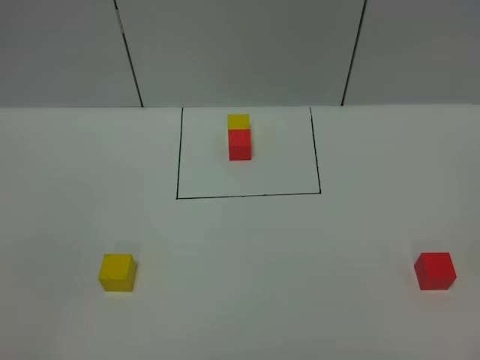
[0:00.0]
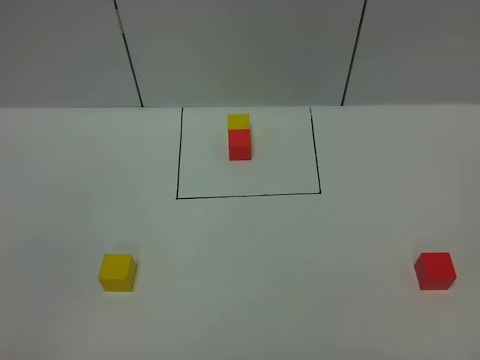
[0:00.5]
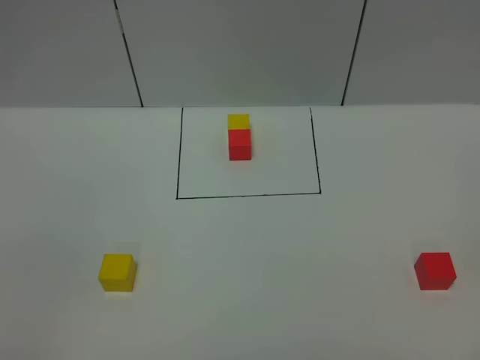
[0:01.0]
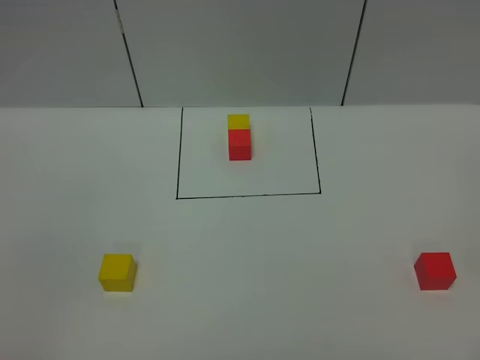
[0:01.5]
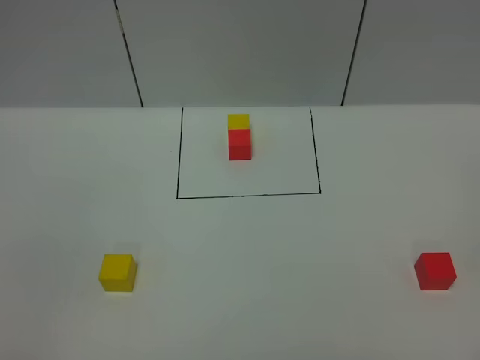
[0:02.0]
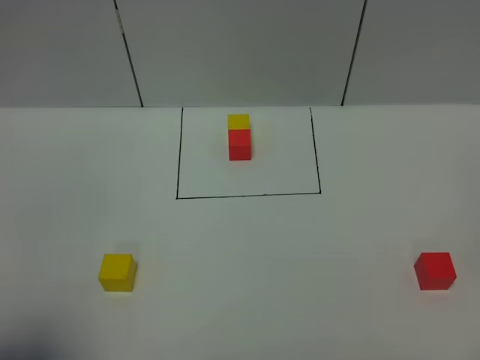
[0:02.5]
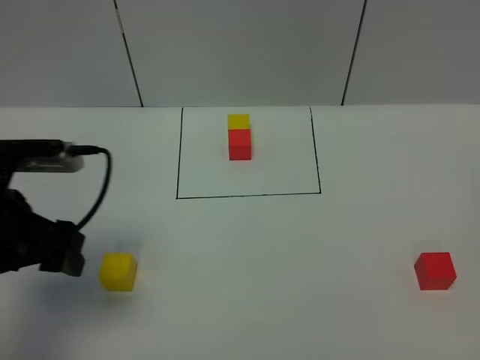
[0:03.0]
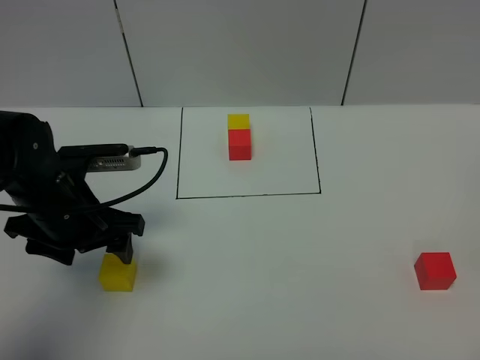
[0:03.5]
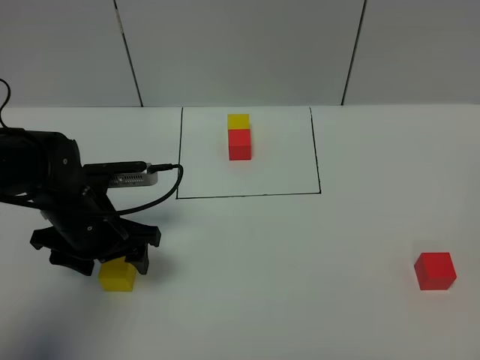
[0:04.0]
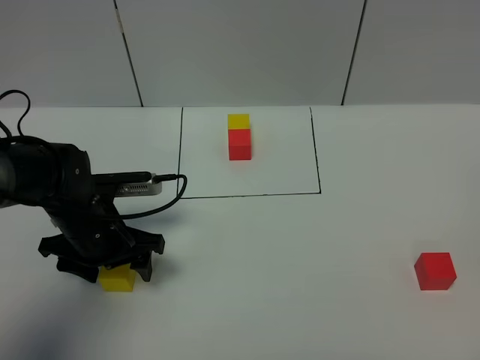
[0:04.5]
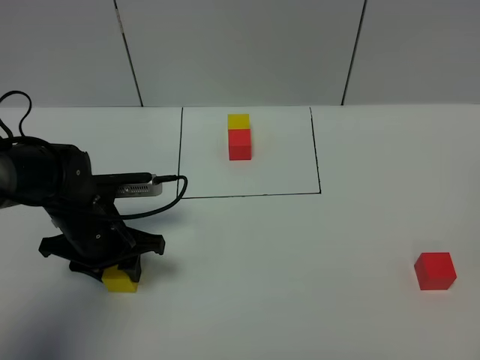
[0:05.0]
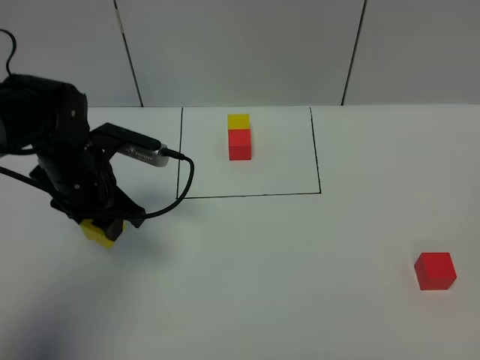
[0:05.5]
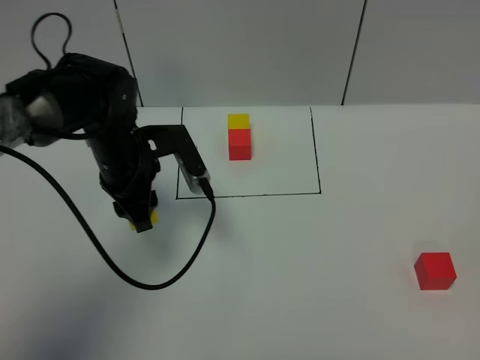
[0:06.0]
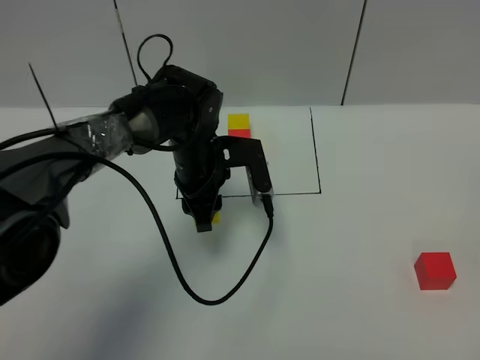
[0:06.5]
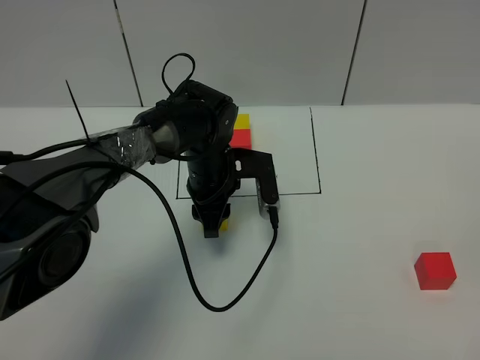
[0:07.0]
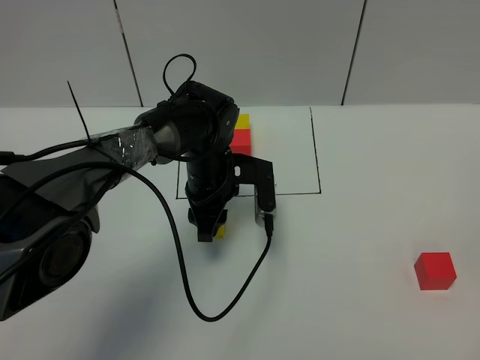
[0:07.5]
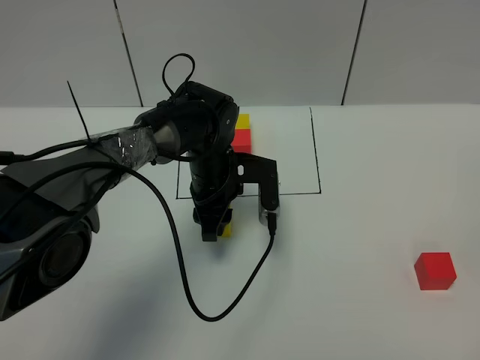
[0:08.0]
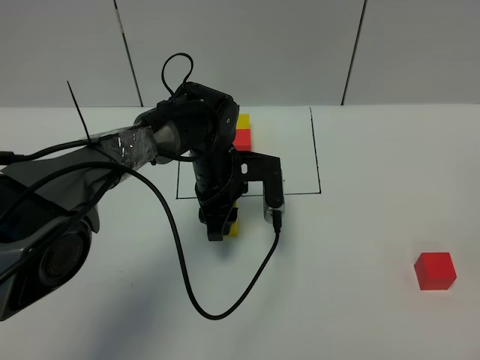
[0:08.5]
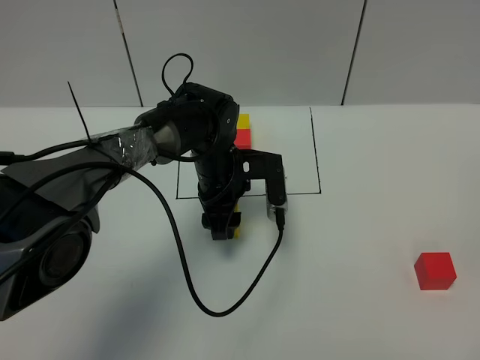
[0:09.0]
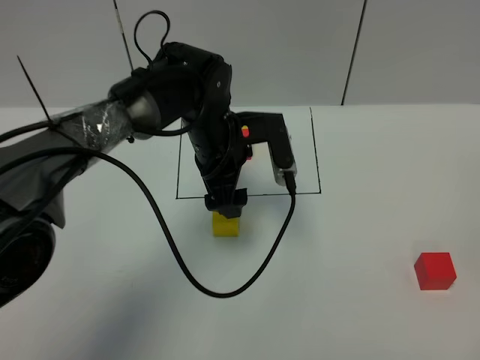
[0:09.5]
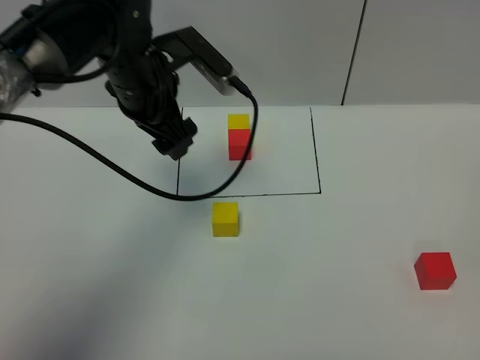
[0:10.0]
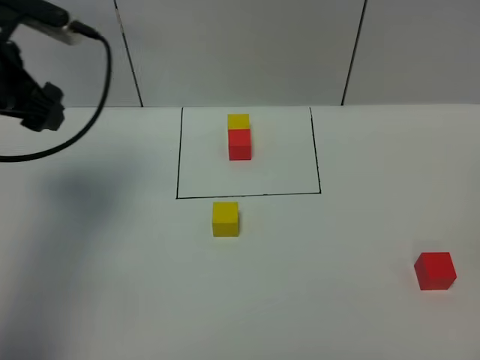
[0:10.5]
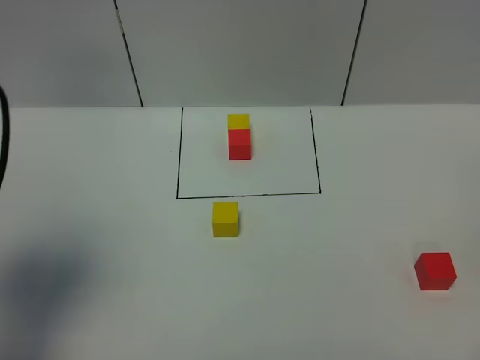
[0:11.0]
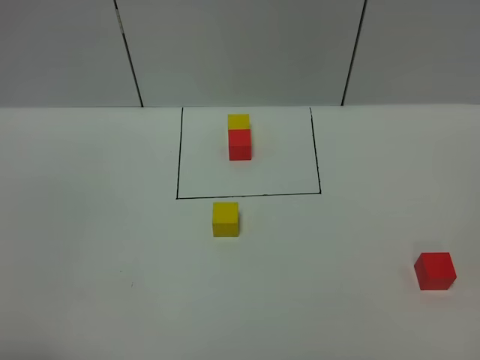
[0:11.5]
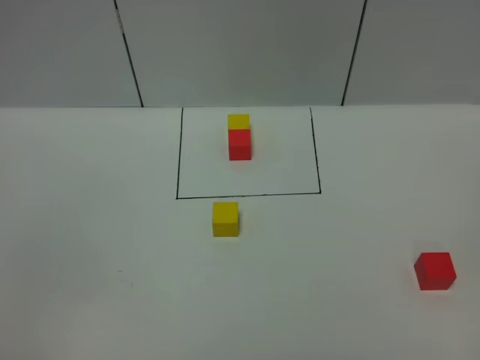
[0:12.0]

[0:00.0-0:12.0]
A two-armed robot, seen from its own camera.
Task of the whole recording: According to the building block template in front, assemble the scattered blocks together.
Step, 0:03.0 to 0:09.0: Put the yellow cube in the center of the table.
0:00.0 to 0:02.0: The two grippers keep their place.
0:02.0 to 0:04.0: The left gripper moves forward, roughly 30 cm.
0:04.0 to 0:06.0: The left gripper travels forward and to the right by about 10 cm, and closes its fingers.
0:06.0 to 0:08.0: The left gripper moves to the right and downward, about 10 cm.
0:08.0 to 0:10.0: The left gripper moves upward and to the left, about 20 cm, and opens.
0:10.0 to 0:12.0: The left gripper heads backward, covering about 40 cm.

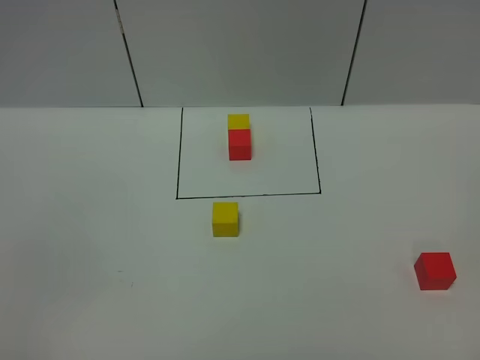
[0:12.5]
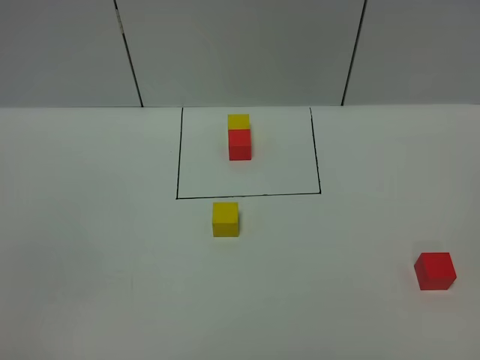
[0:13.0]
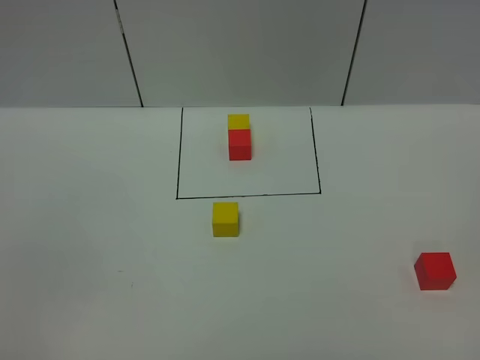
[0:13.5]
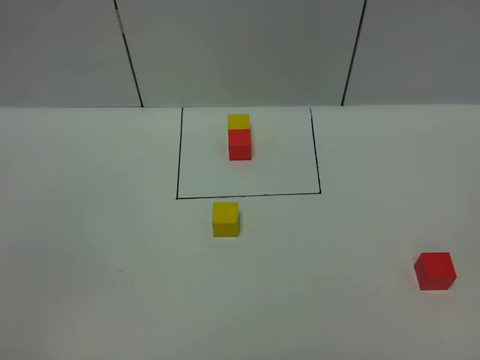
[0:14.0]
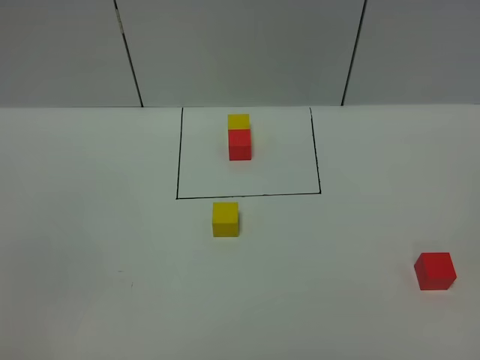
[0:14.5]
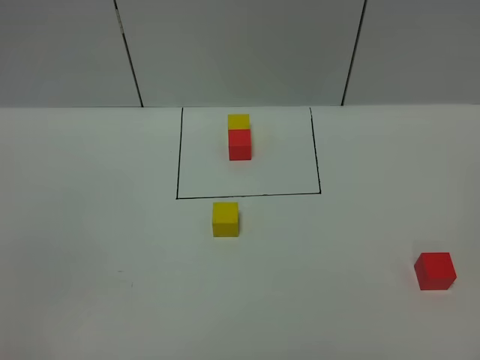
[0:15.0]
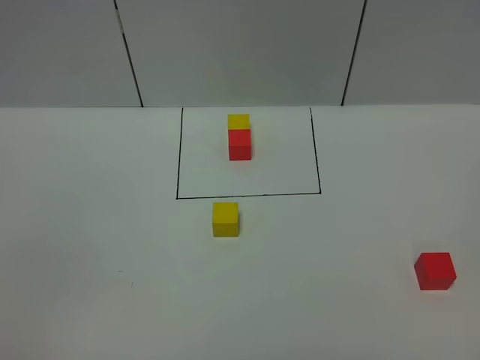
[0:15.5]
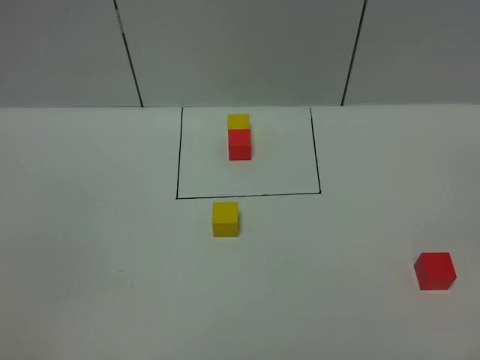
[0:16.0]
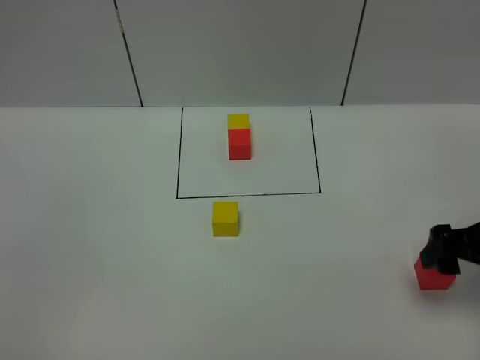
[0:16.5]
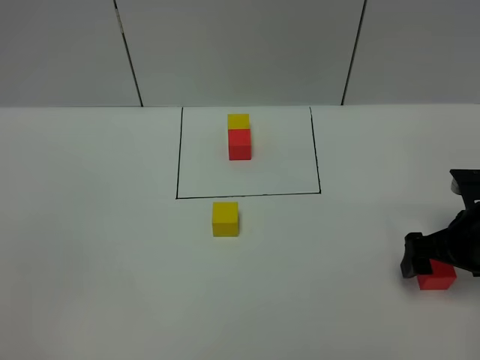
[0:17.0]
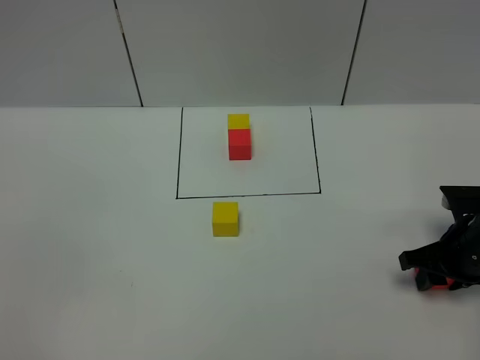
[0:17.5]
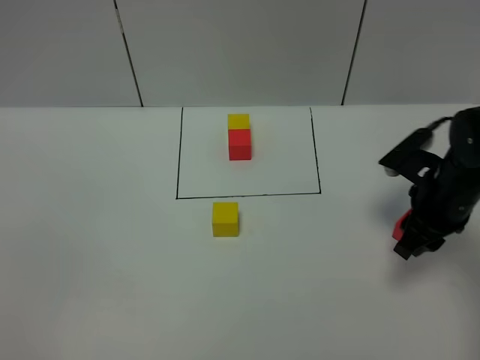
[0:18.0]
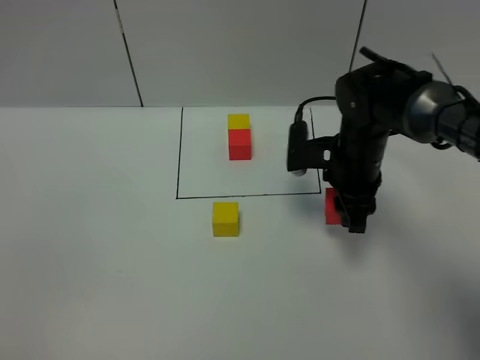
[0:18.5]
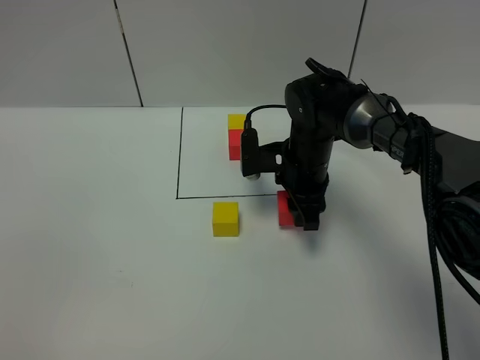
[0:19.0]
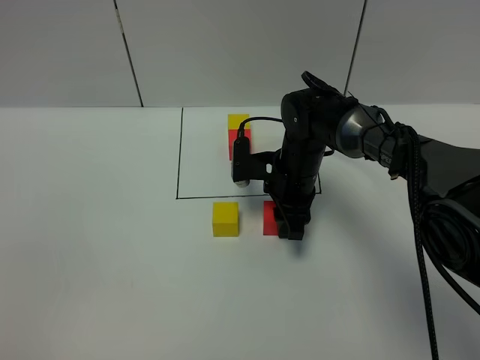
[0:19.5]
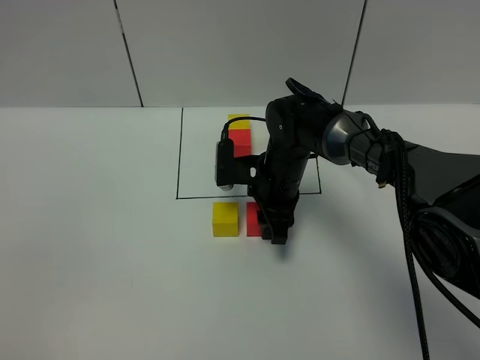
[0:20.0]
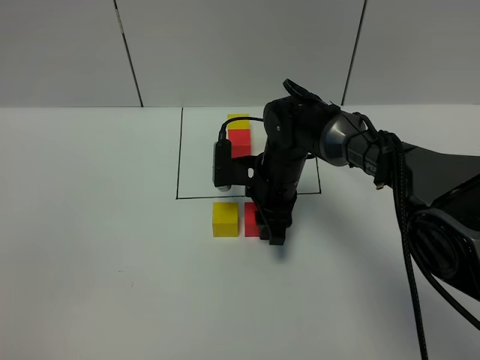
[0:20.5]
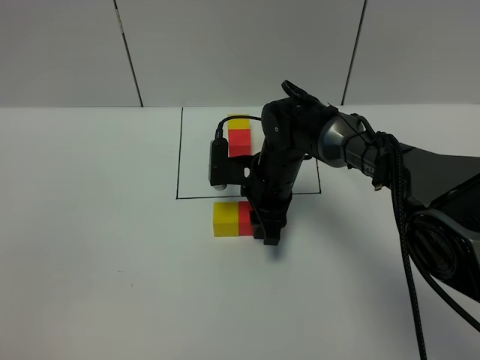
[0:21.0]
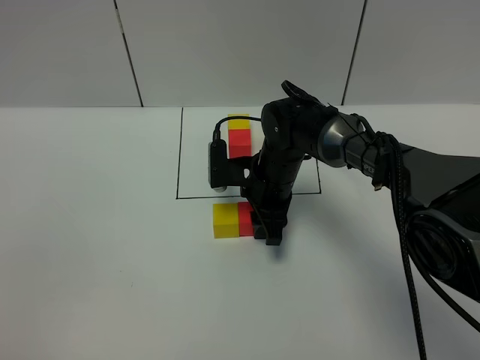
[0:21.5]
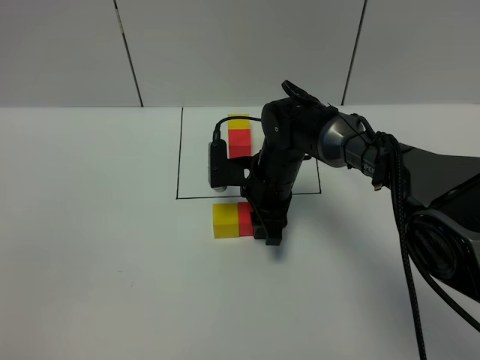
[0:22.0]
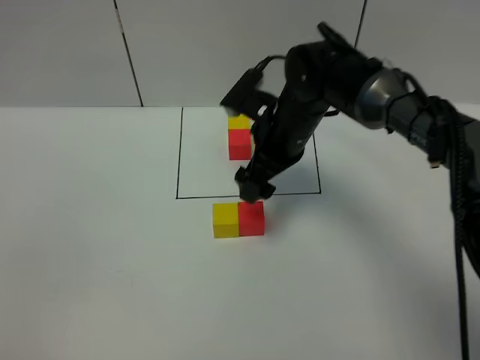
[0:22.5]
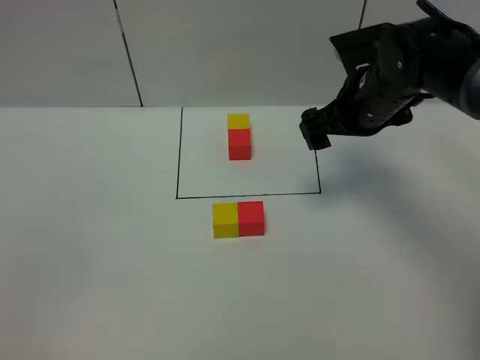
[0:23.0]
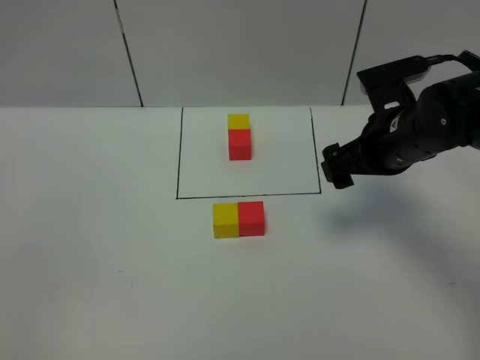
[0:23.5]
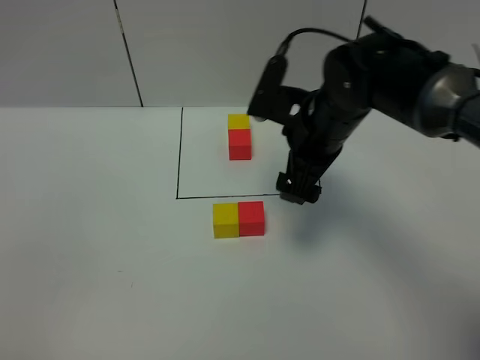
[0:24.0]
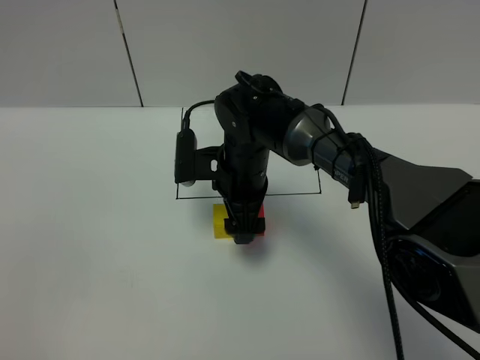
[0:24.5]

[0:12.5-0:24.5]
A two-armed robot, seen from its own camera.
Task of the whole recording: According to the building block template in front, assemble the scattered blocks together.
Step, 0:12.5 to 0:22.0: Put the red cube on the right of the yellow cube.
0:12.5 to 0:14.5: The two grippers keep their place.
0:14.5 to 0:16.5: The right gripper travels forward by about 25 cm, and opens.
0:16.5 to 0:18.5: The right gripper goes approximately 20 cm forward and to the left, and closes its fingers.
0:18.5 to 0:20.5: The right gripper shifts roughly 10 cm to the left and downward.
0:20.5 to 0:22.5: The right gripper moves upward, approximately 10 cm, and opens its fingers.
0:22.5 to 0:24.5: The right gripper is displaced to the left and downward by roughly 10 cm.

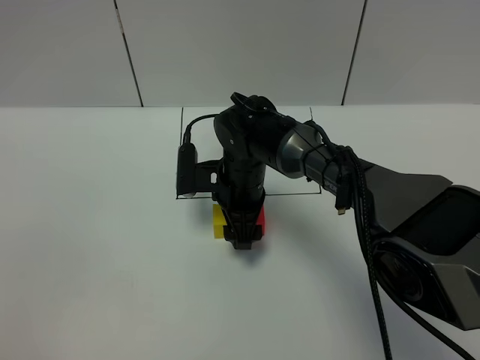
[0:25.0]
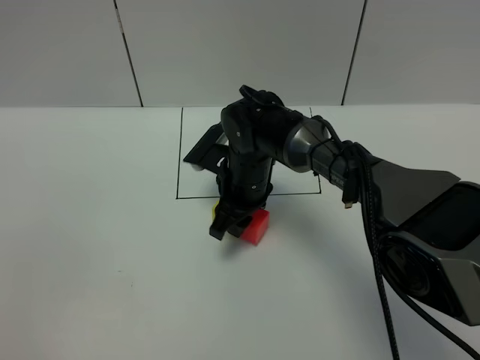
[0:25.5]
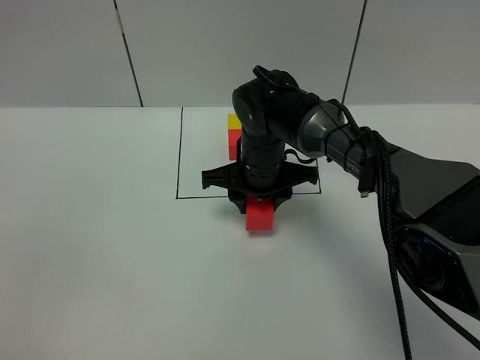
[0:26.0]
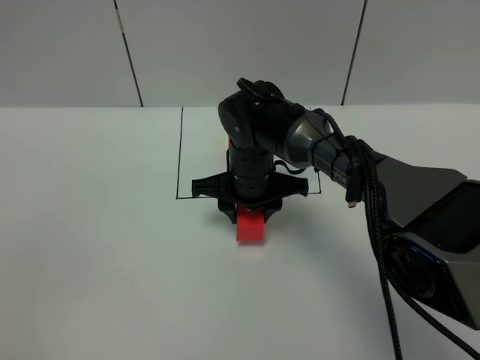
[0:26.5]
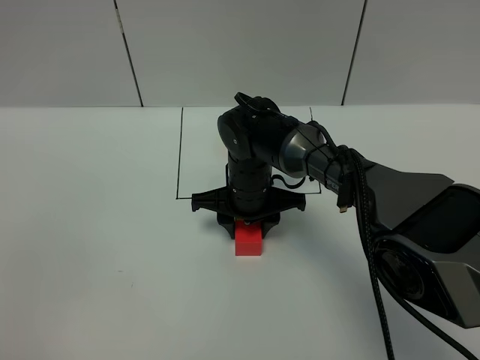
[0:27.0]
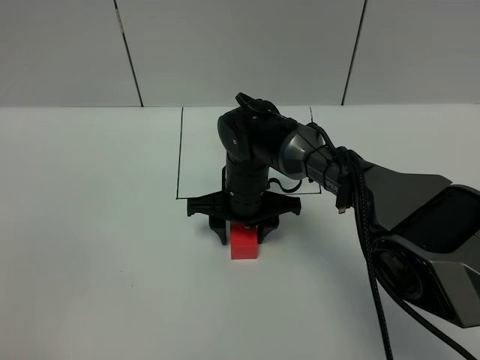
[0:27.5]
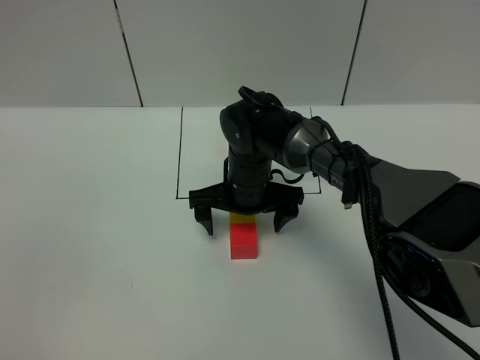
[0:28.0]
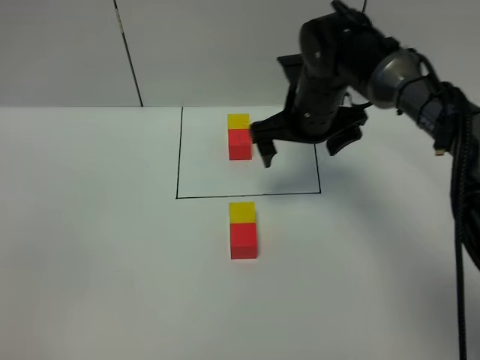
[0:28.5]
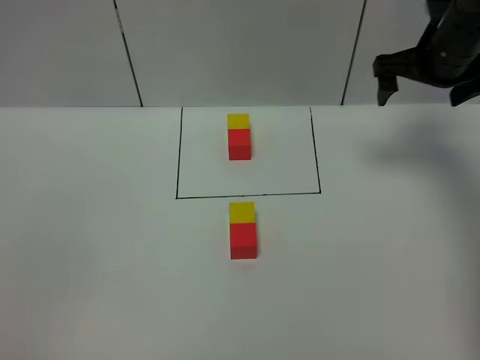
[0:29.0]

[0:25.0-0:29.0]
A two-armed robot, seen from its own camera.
Task of the whole recording: According to the building block template in front, assemble the scattered blocks together.
Step, 0:25.0 to 0:27.5: Adjust the pose of the building blocks.
0:25.0 to 0:27.0: The right gripper closes its fingers.
0:27.0 to 0:29.0: The right gripper shifts some 30 cm to the right and upward, and opens its fingers.
